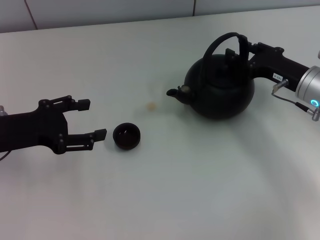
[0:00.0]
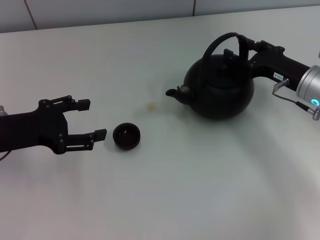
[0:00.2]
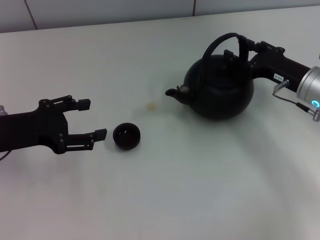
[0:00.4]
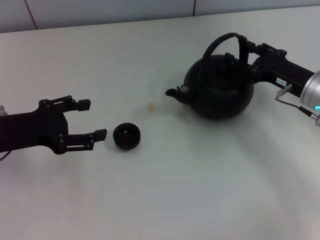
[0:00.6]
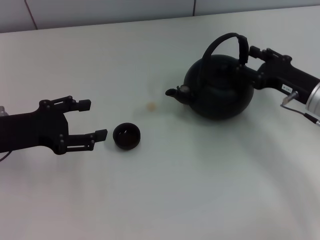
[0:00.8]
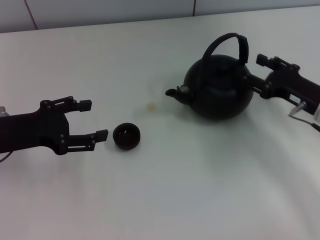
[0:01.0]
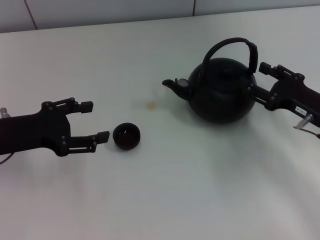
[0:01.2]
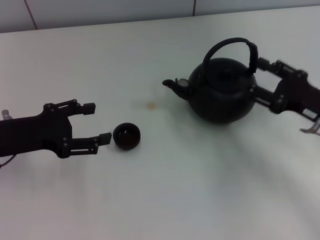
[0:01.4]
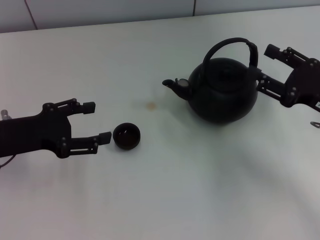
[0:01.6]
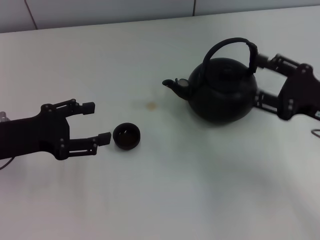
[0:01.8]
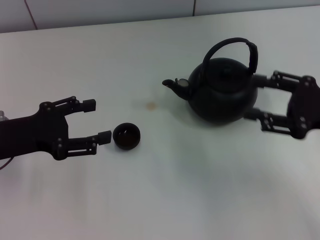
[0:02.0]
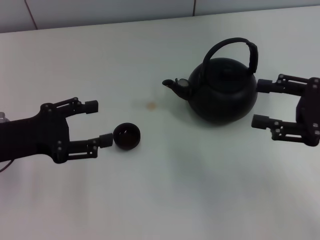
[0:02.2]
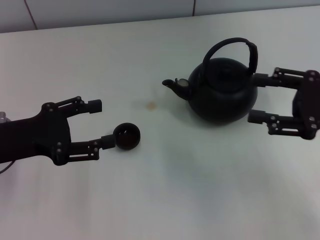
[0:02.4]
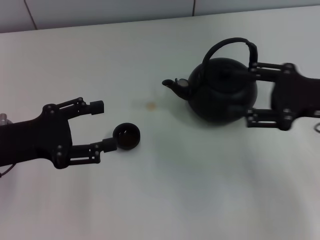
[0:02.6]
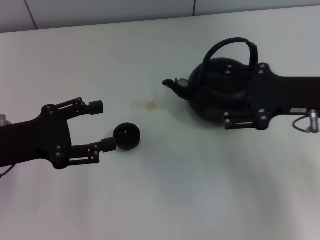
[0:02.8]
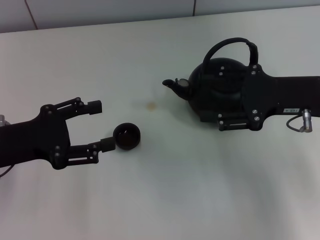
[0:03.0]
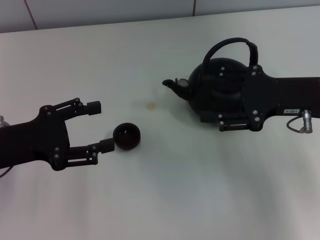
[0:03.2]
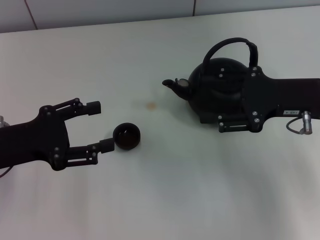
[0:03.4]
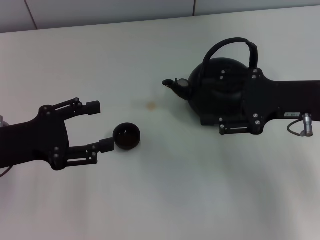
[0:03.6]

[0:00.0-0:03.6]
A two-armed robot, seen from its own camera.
Task of the whole recording: Grasp the handle of the teapot with one hand and pour tea into the teacup.
0:00.0 to 0:01.8: The right gripper shifts roughly 10 cm backward, and opens.
0:01.8 to 0:03.6: The right gripper shifts by approximately 5 cm.

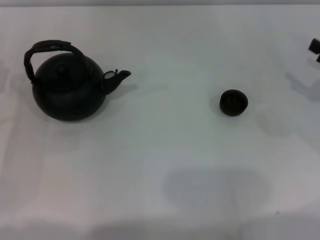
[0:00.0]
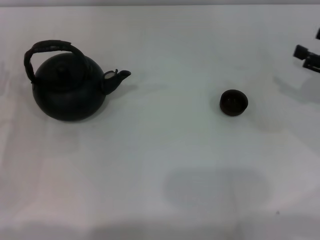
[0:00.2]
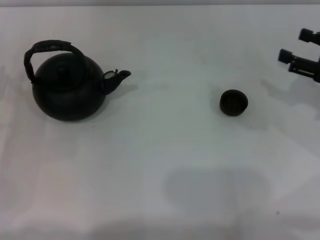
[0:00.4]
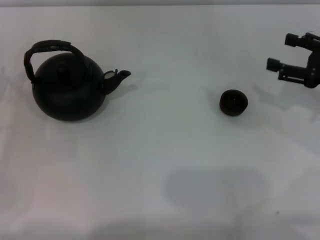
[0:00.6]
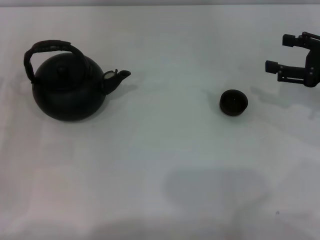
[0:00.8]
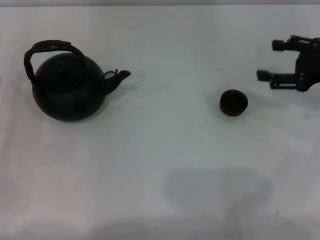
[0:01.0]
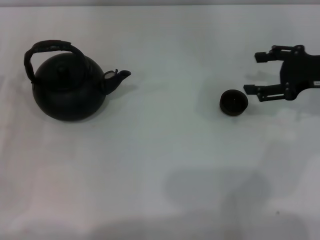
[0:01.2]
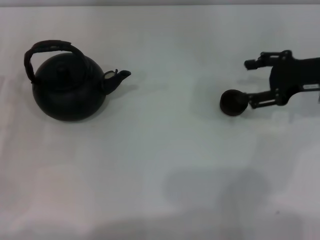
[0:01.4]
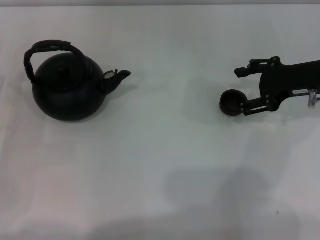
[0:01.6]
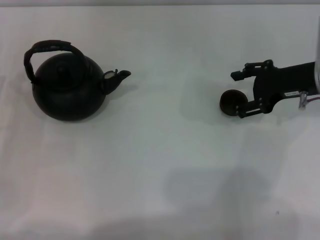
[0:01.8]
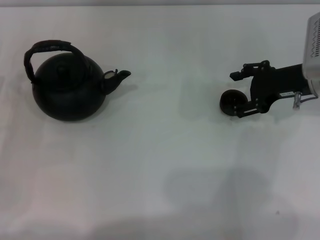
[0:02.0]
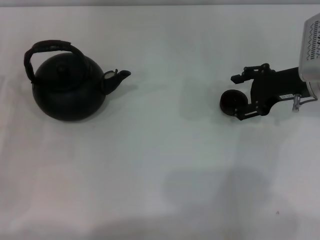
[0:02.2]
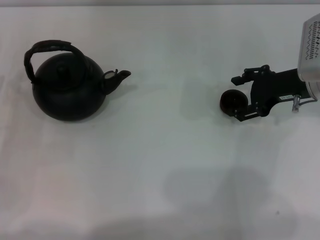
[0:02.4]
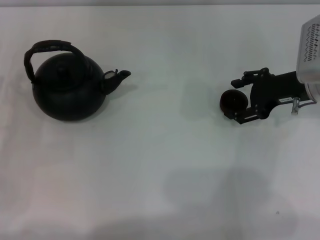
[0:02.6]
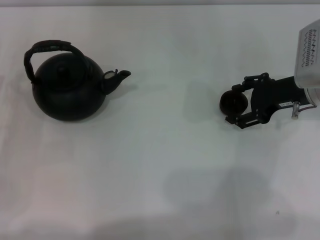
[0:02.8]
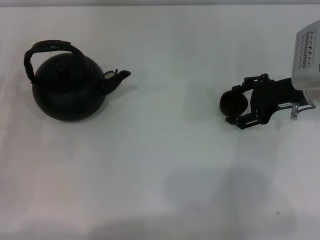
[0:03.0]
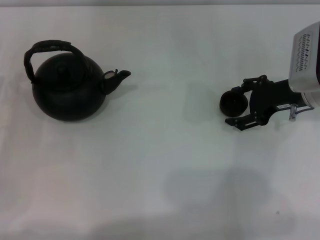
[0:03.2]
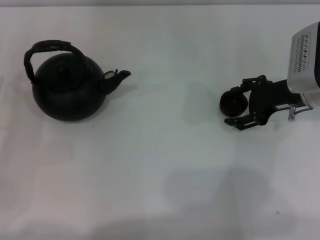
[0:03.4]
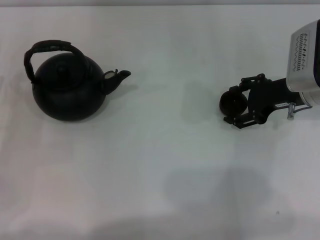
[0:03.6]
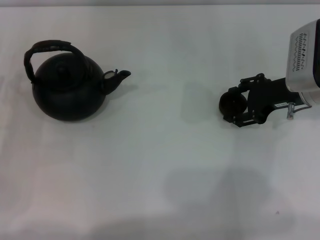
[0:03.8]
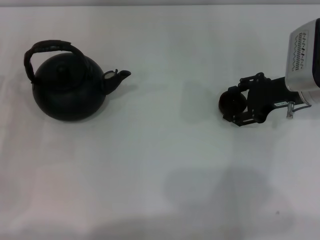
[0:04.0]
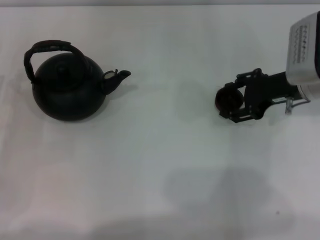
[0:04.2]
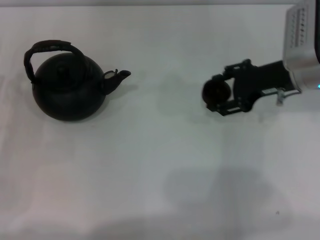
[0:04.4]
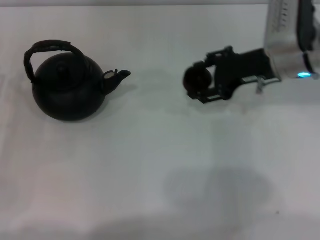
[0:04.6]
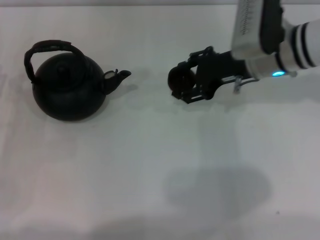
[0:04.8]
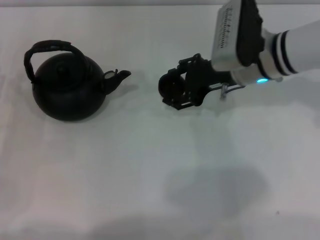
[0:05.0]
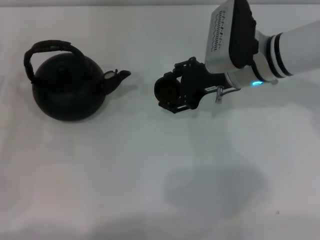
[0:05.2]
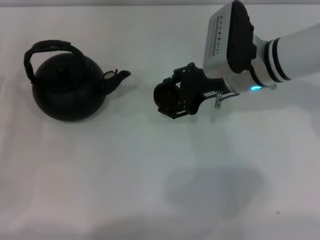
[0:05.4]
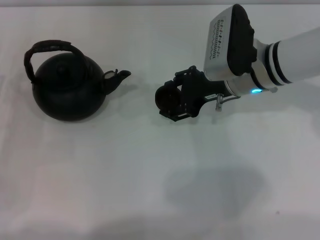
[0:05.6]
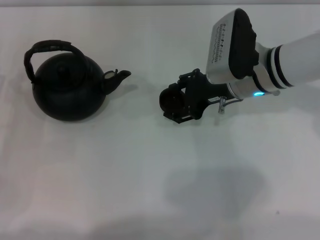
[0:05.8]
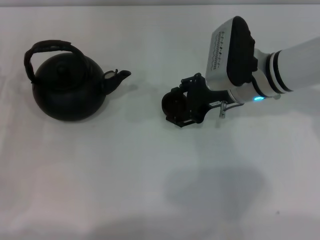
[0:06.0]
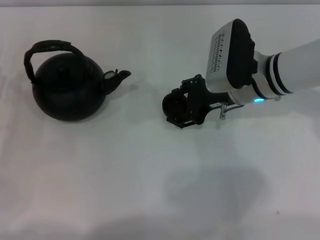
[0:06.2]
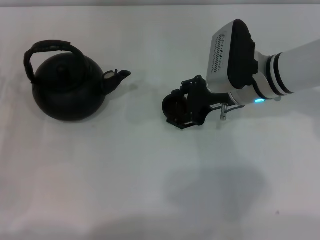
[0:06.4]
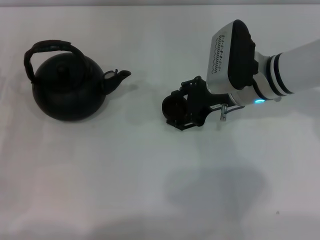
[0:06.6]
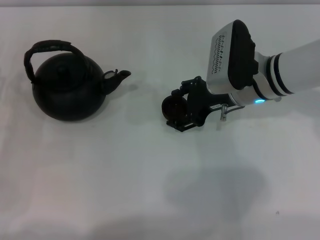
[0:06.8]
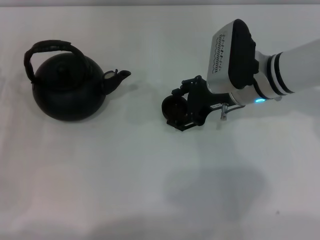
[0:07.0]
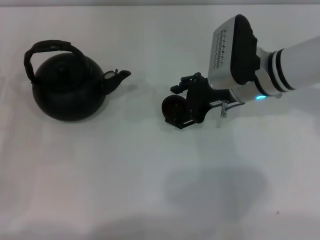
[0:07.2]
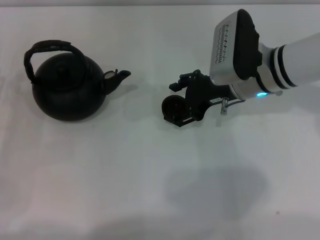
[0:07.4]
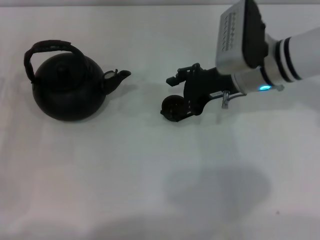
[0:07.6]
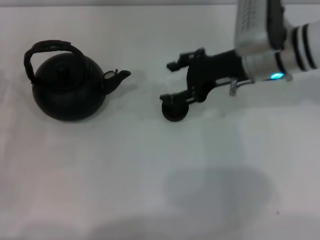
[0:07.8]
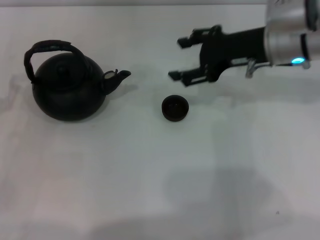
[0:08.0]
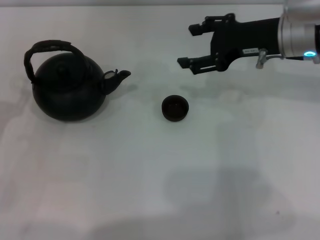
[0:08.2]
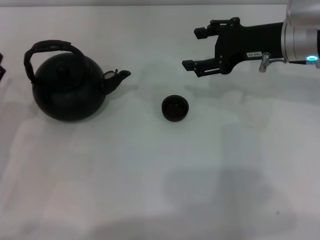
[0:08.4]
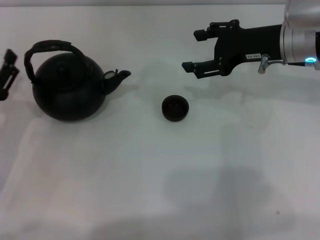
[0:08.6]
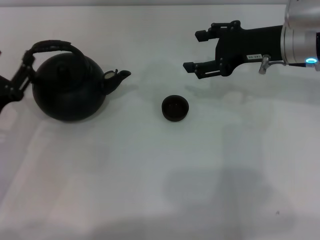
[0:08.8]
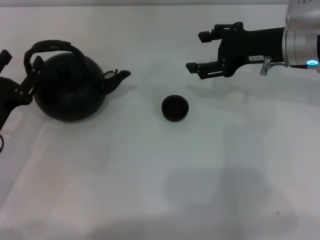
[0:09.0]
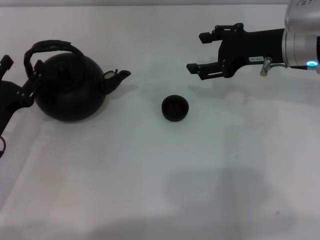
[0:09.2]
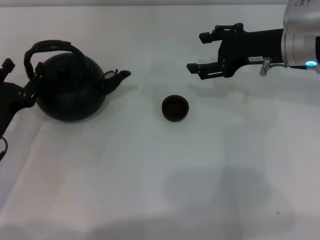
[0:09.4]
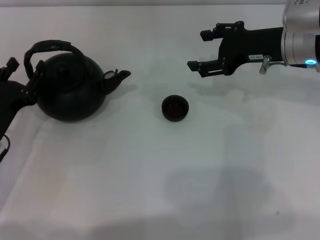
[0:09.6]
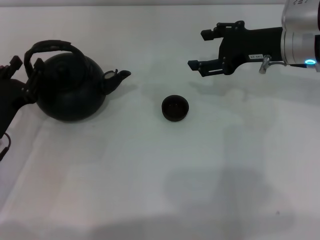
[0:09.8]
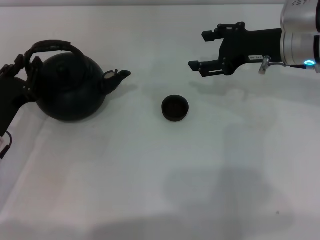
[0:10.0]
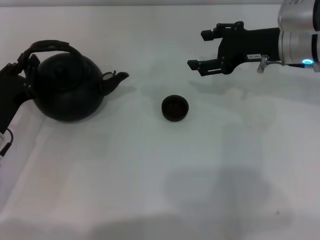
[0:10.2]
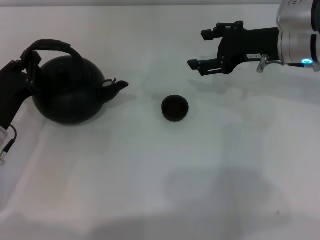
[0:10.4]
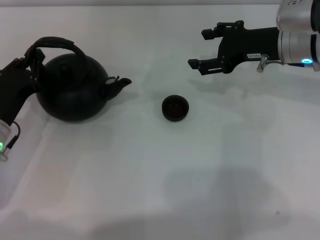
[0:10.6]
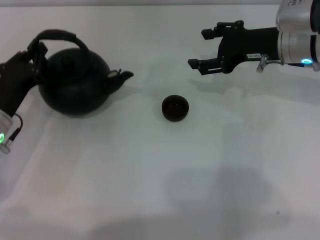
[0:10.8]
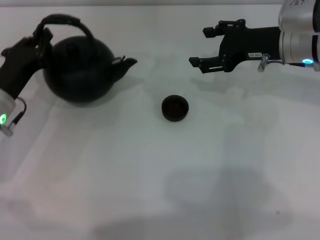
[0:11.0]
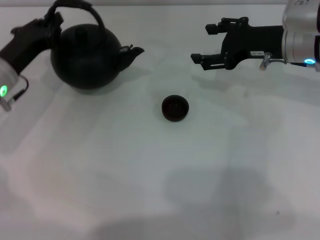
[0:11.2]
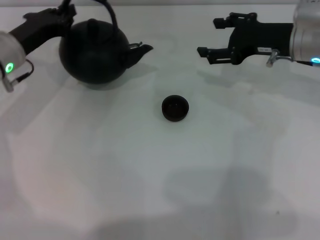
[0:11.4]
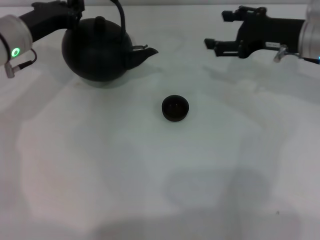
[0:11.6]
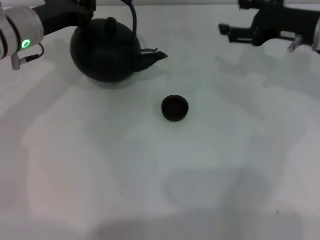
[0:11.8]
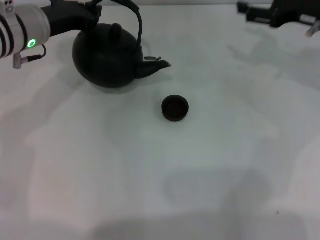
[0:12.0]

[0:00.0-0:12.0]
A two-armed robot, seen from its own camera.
Task of the whole recording: Grasp the handle of the teapot with one hand and pour tea into the teacup.
Step, 0:00.0 to 0:04.2: Pick up the teacup with the right gripper.
Step, 0:04.4 to 0:08.0: Place the teacup in the center of view with the right gripper.
0:00.0 to 0:01.6: The right gripper shifts approximately 10 cm to the left and forward.
0:01.6 to 0:04.4: The grippers move only a little.
0:04.4 to 0:06.0: The right gripper moves to the left, roughly 10 cm.
0:06.0 to 0:07.6: The grippers stay close to where they were, moving slightly.
0:07.6 to 0:09.0: Both grippers move to the right, about 5 cm.
0:09.0 to 0:10.4: The left gripper closes its fingers.
0:10.4 to 0:12.0: The right gripper is displaced to the right by some 5 cm, while the left gripper is displaced forward, upward and to the right by some 20 cm.

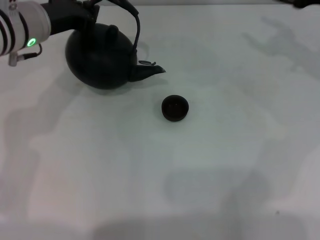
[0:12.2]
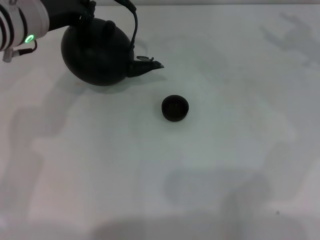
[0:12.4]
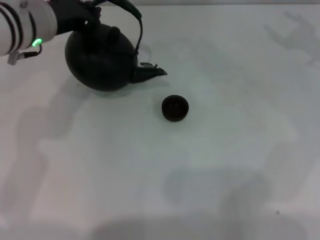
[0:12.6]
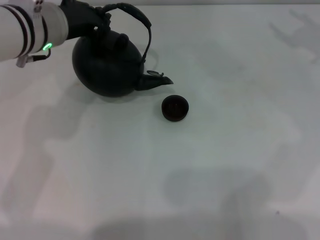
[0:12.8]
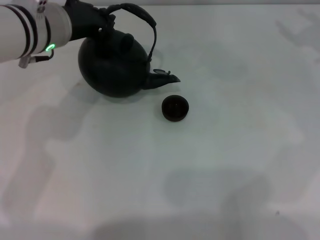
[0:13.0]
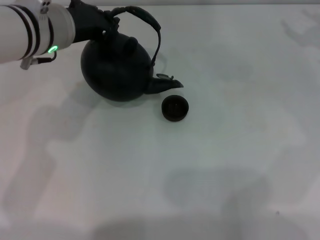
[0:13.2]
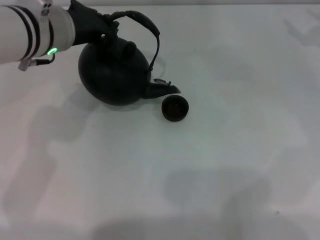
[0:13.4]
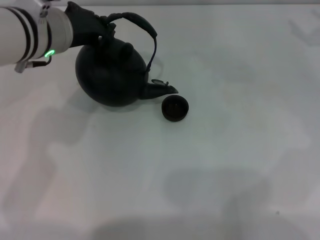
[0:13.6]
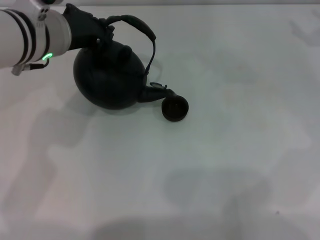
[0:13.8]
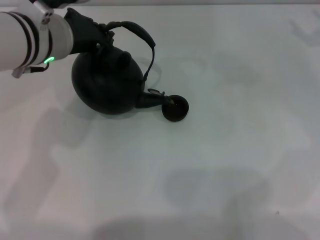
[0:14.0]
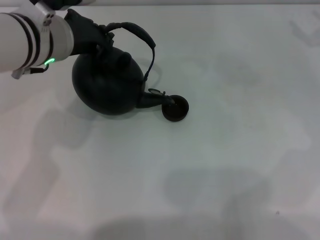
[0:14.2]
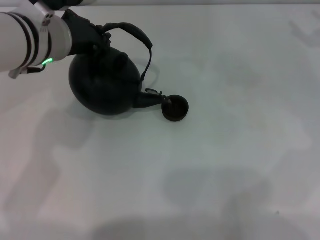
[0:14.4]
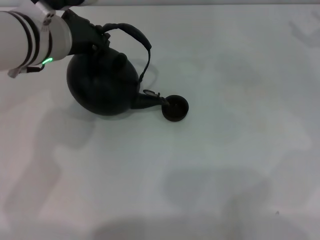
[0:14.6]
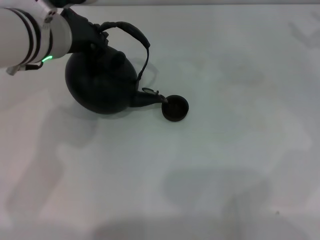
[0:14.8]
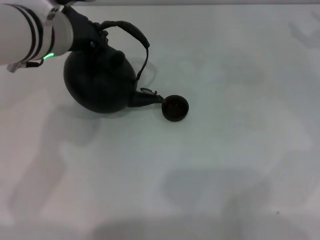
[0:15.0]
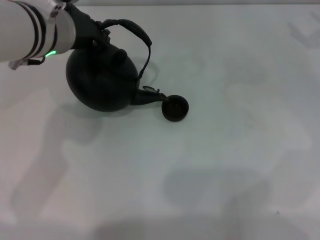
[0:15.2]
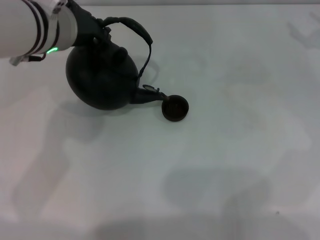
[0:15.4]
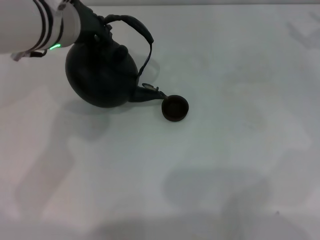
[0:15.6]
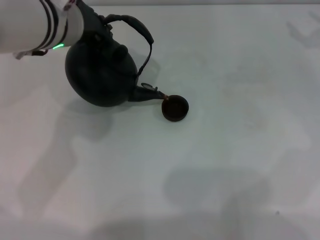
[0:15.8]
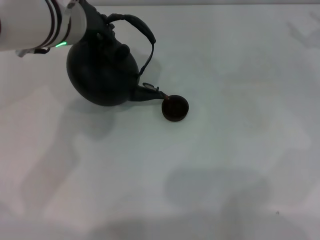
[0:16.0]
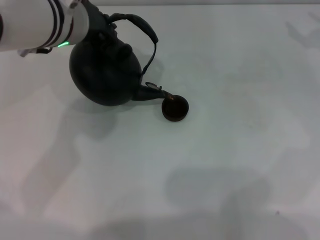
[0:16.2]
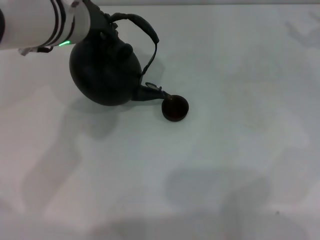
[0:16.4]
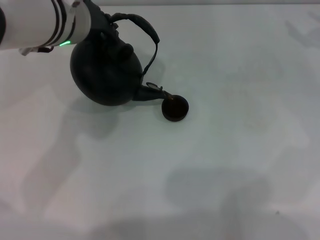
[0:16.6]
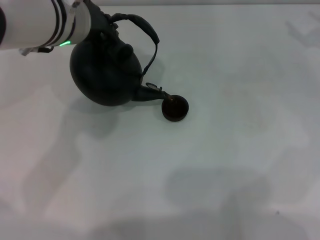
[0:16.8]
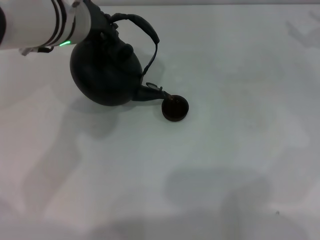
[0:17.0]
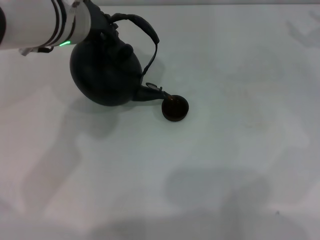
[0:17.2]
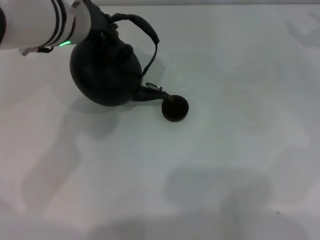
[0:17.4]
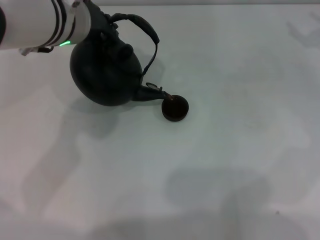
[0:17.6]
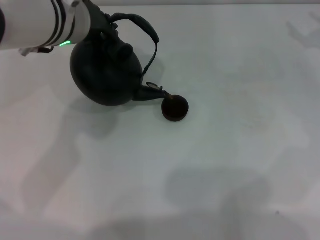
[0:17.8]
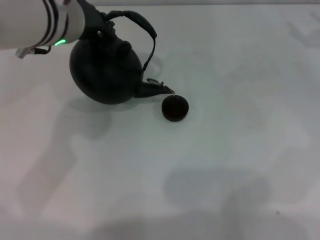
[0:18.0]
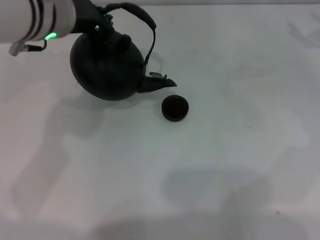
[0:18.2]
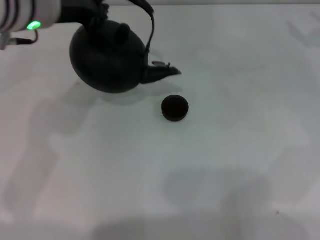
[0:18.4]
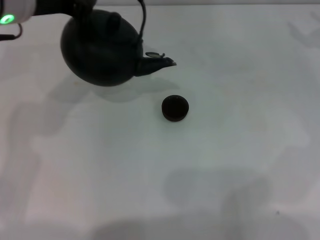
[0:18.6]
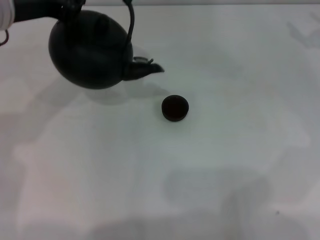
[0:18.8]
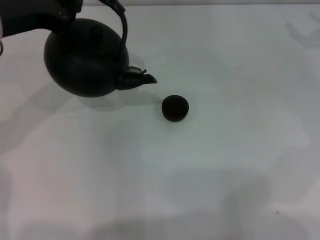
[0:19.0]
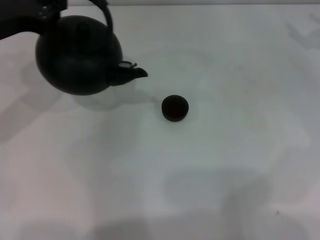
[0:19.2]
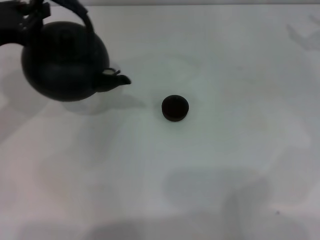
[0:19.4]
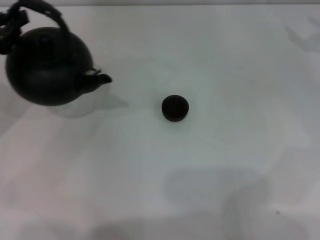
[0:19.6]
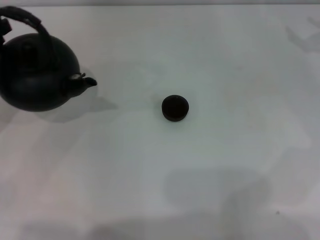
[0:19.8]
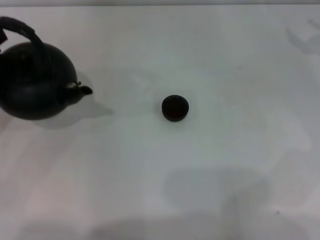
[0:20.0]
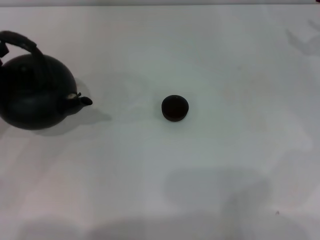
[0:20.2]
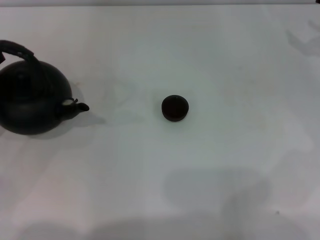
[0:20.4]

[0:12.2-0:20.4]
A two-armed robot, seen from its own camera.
Task of the whole recording: Grasp the handle of the teapot with one hand and pour tea into the teacup.
Step, 0:12.2 to 0:18.0: Pour tea into the teacup with the left gripper.
0:12.2 to 0:13.8: The right gripper goes about 5 cm to the right. The left gripper changes place by about 5 cm.
0:13.8 to 0:17.2: The grippers make only small movements.
0:17.2 to 0:18.8: The left gripper goes approximately 10 cm to the left.
0:18.8 to 0:20.4: The left gripper travels to the left, downward and backward by about 20 cm.
